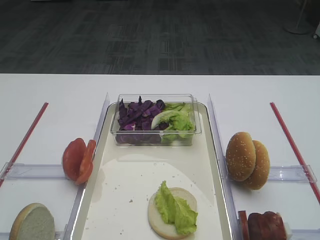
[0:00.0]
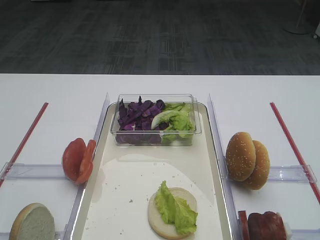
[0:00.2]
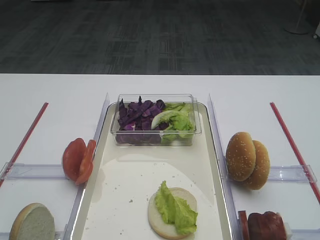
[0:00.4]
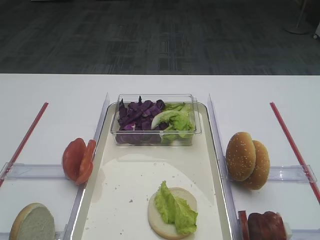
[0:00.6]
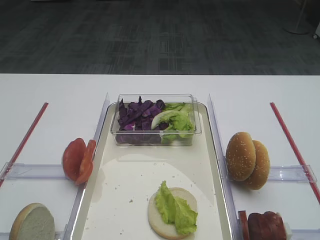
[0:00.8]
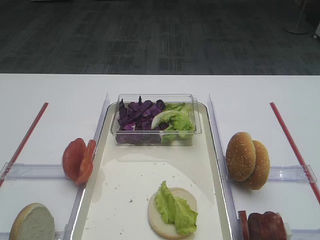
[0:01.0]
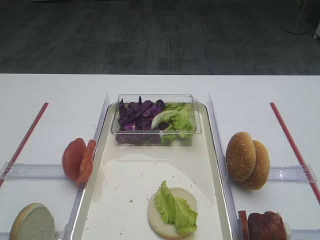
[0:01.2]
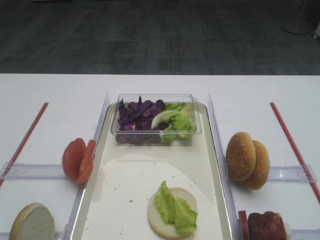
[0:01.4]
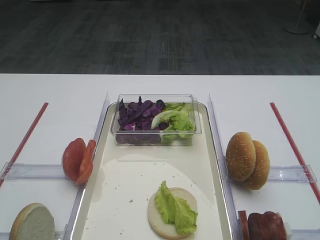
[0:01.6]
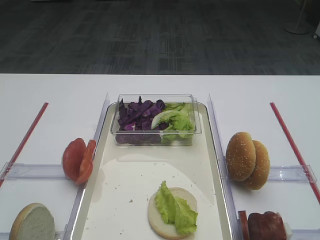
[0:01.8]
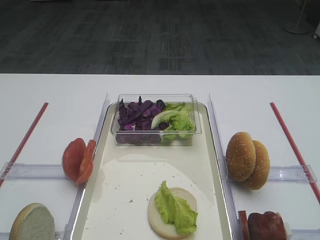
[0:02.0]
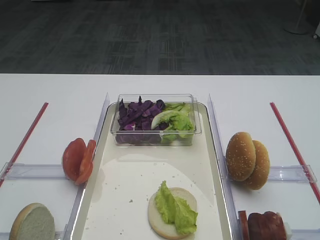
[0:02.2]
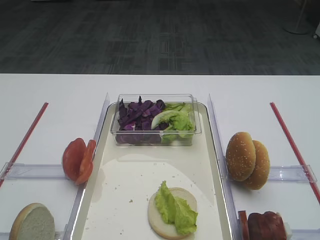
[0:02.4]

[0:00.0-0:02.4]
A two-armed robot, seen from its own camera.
0:00.0 to 0:02.4: Both grippers stay put.

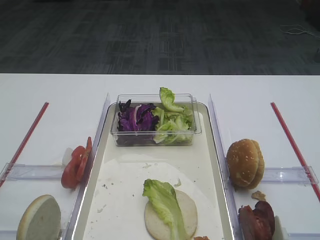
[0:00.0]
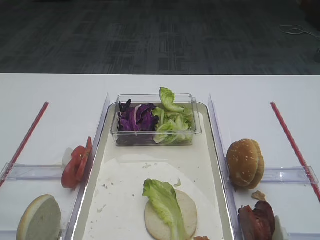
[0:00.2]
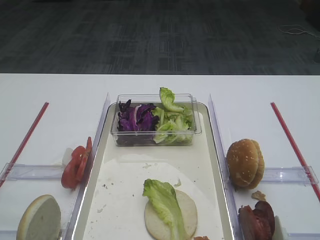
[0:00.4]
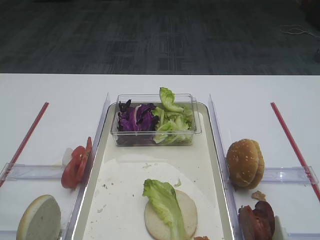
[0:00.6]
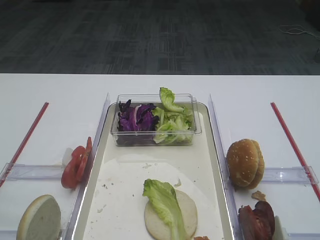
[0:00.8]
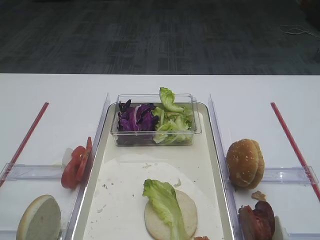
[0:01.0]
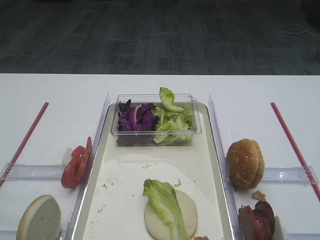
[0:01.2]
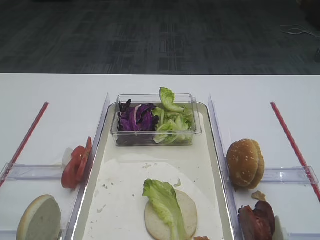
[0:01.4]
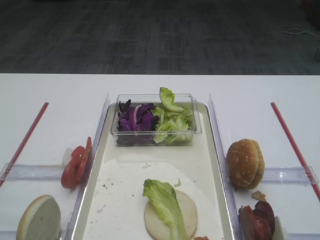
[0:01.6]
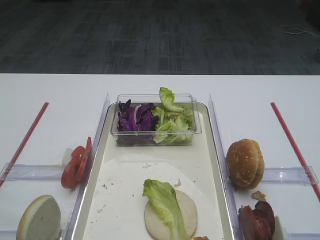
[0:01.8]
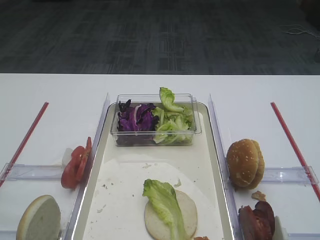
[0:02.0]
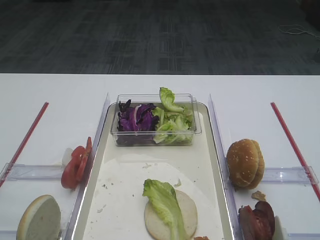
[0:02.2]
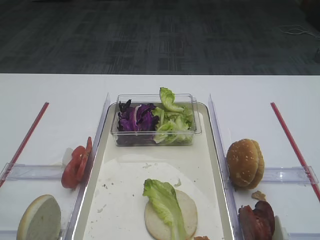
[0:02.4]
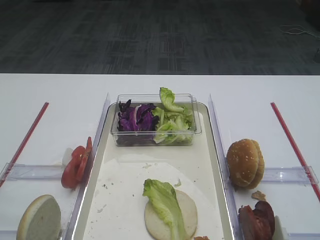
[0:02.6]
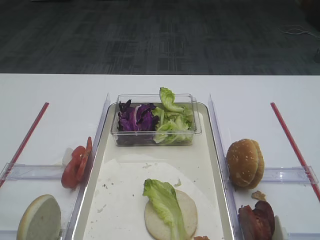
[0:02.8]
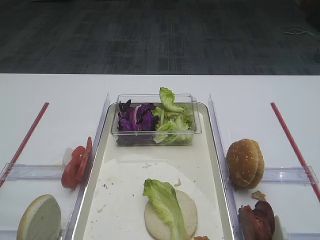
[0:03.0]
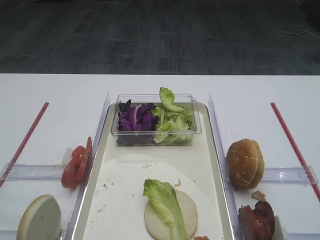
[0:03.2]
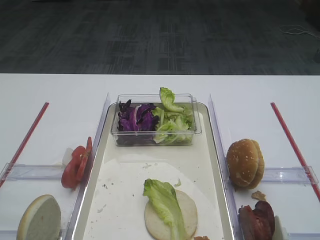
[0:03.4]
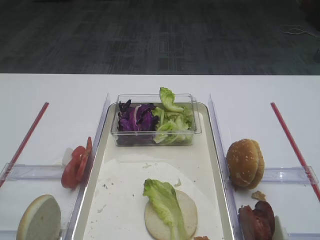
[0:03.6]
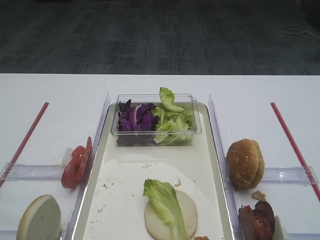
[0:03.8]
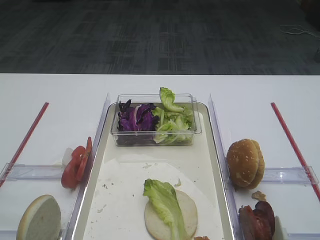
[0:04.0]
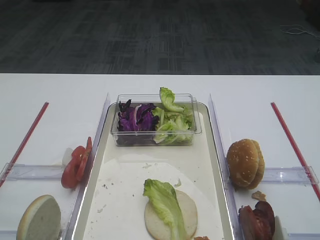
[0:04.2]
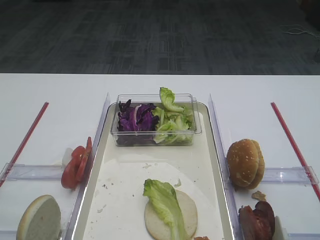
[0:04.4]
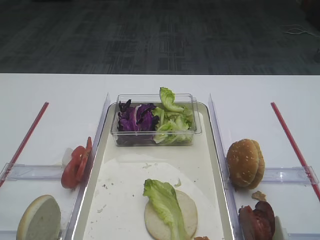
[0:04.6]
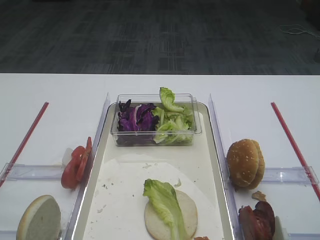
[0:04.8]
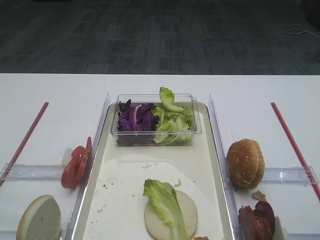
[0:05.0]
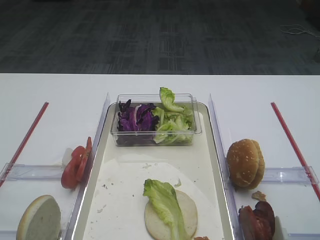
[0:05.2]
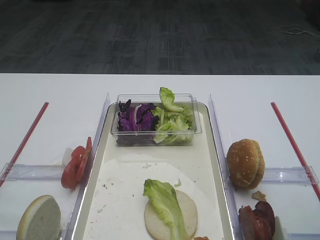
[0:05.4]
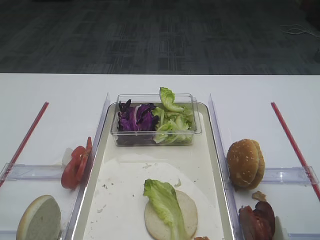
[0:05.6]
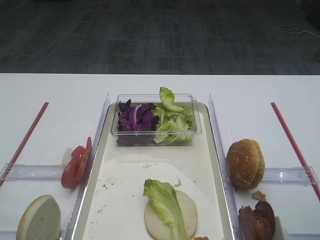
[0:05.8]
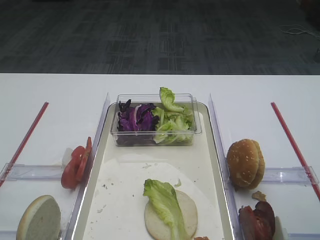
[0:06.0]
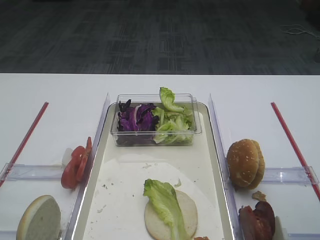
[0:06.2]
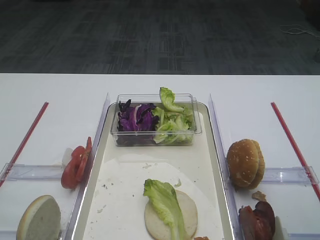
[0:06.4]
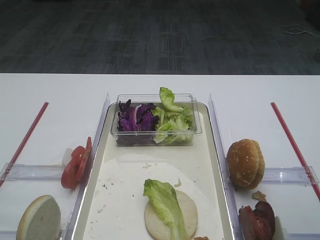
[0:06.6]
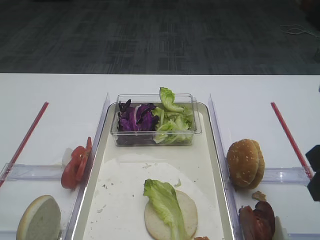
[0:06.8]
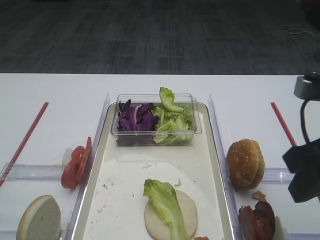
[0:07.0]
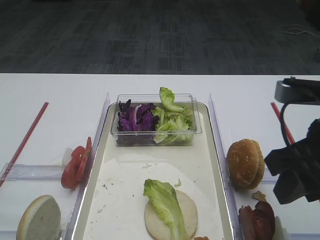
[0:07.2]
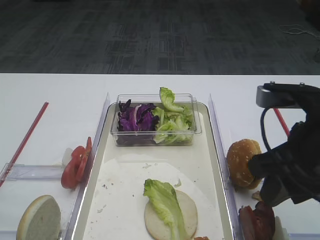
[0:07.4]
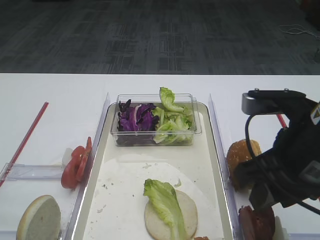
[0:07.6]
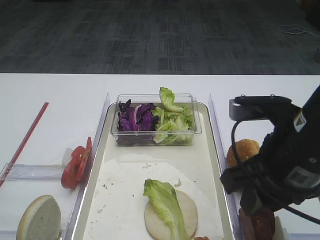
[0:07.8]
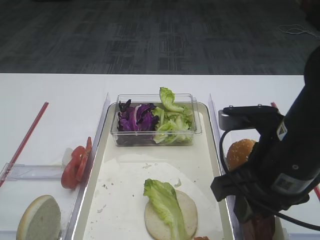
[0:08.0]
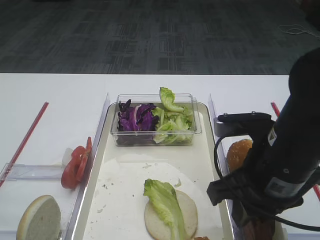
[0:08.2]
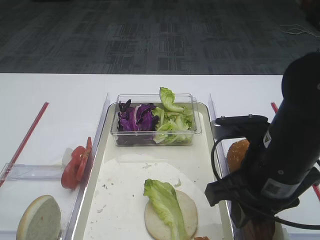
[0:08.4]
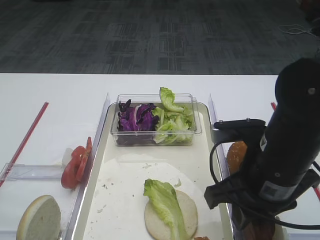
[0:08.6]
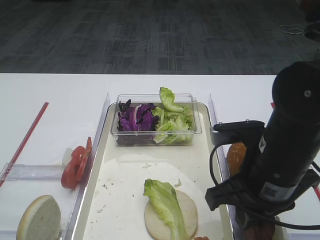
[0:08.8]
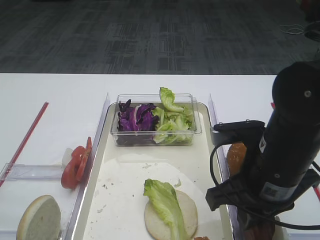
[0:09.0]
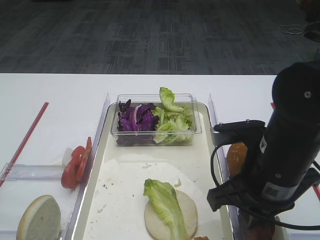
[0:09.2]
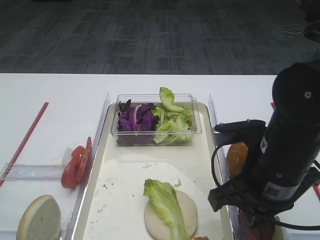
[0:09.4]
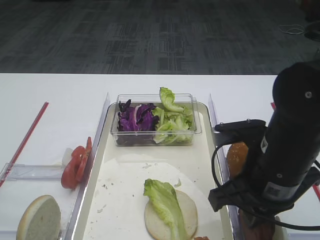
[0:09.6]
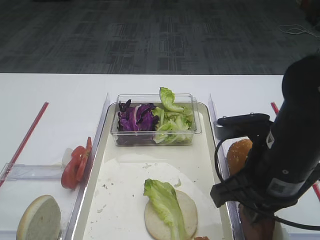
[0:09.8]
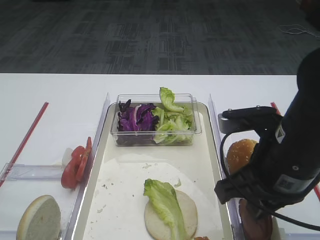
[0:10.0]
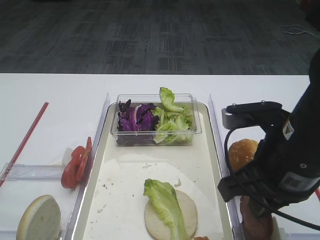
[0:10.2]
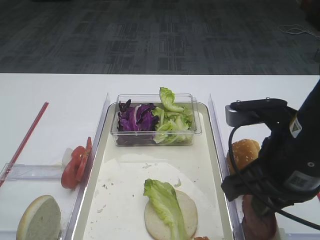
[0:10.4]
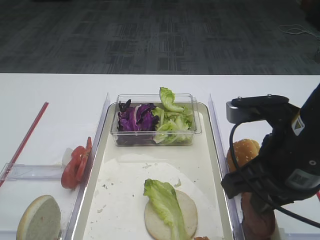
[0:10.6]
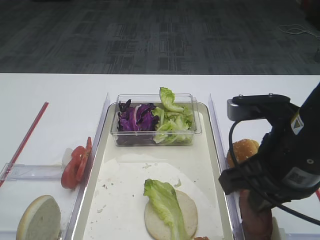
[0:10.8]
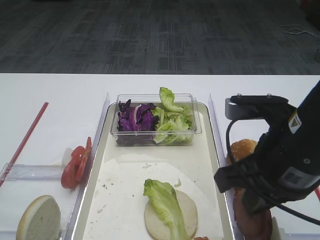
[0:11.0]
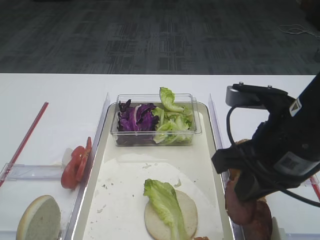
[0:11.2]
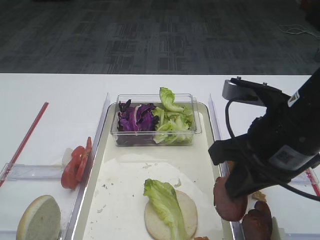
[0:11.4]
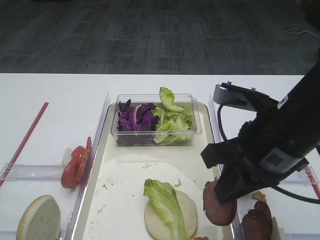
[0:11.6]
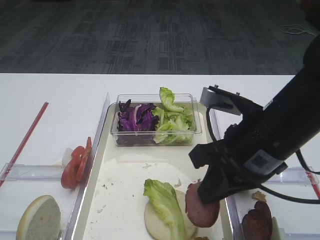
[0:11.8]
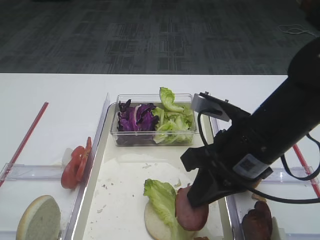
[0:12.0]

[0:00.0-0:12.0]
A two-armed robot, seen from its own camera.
Step, 0:00.0 to 0:10.4: Pick up the cutlet with the right gripper.
0:06.0 to 0:07.6: The right gripper travels to the left by roughly 10 cm.
0:07.6 to 0:09.0: The right gripper moves downward, some 5 cm, and closes its fingers.
0:09.0 to 0:10.4: The grippers stay close to where they were, moving slightly.
0:10.4 to 0:12.0: The right gripper moves roughly 5 cm.

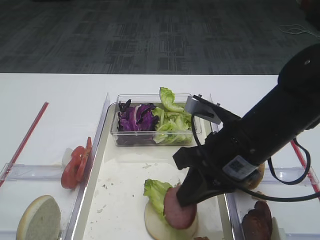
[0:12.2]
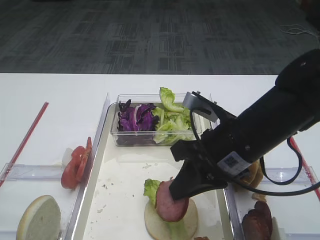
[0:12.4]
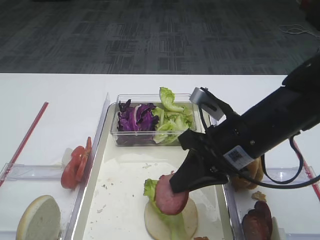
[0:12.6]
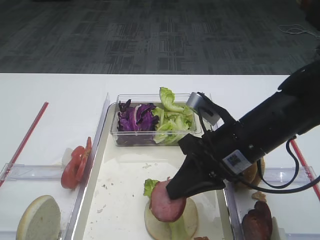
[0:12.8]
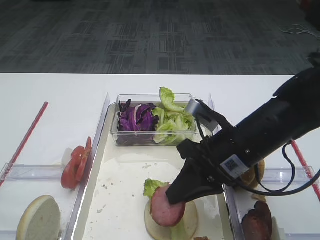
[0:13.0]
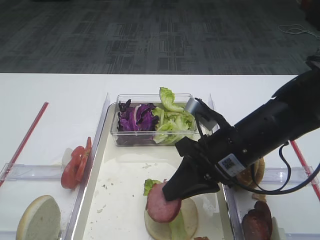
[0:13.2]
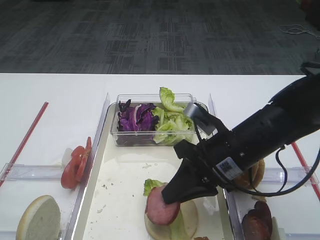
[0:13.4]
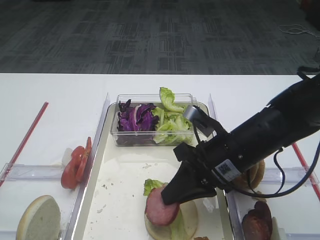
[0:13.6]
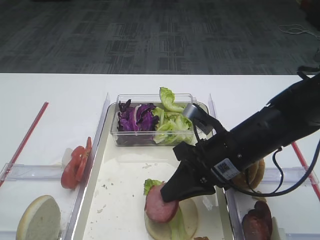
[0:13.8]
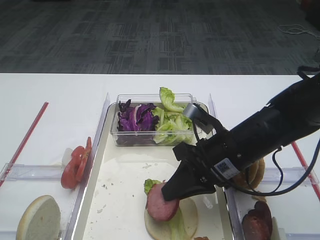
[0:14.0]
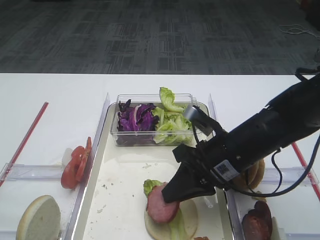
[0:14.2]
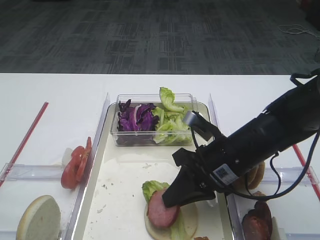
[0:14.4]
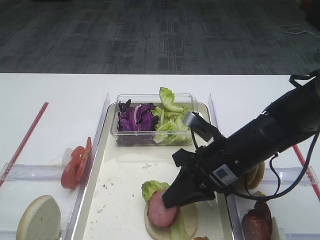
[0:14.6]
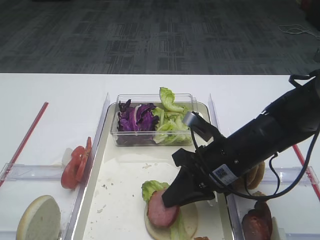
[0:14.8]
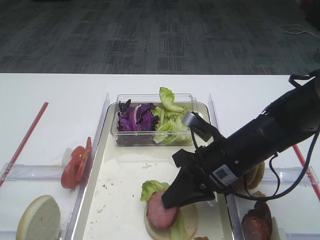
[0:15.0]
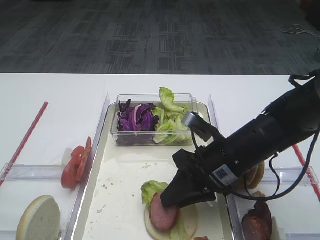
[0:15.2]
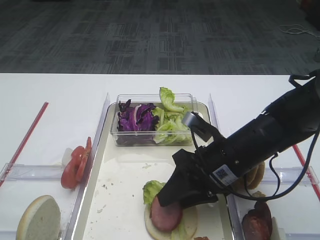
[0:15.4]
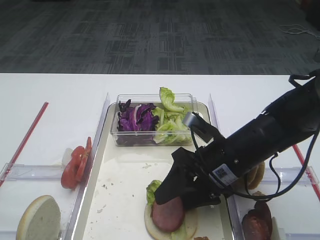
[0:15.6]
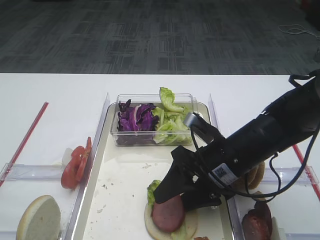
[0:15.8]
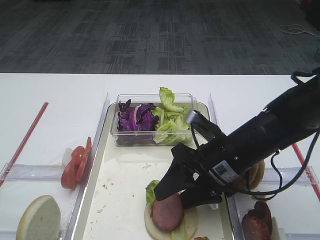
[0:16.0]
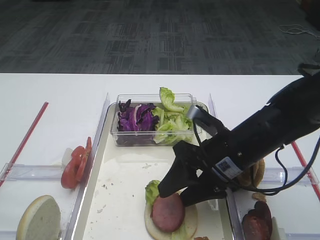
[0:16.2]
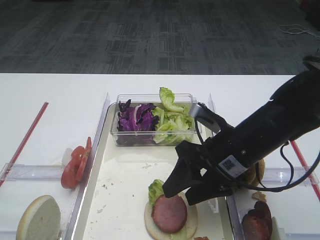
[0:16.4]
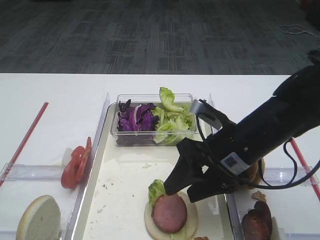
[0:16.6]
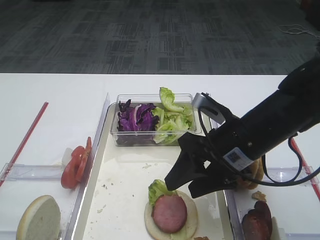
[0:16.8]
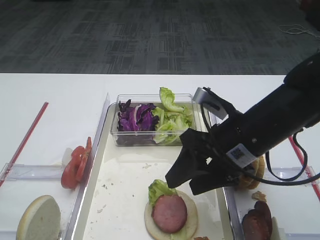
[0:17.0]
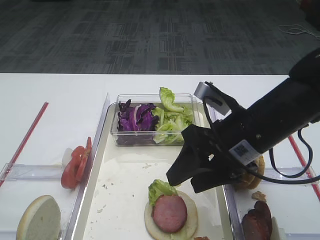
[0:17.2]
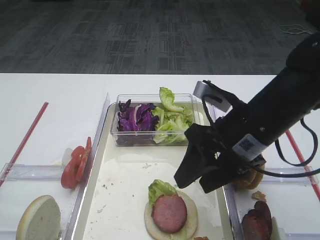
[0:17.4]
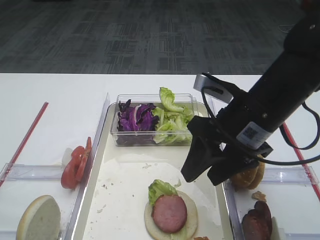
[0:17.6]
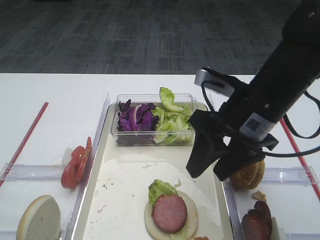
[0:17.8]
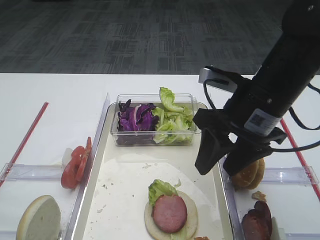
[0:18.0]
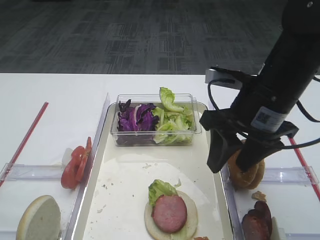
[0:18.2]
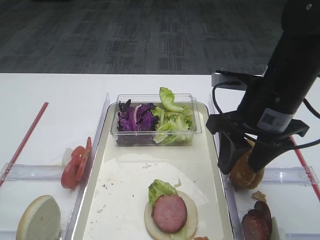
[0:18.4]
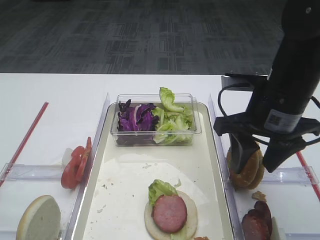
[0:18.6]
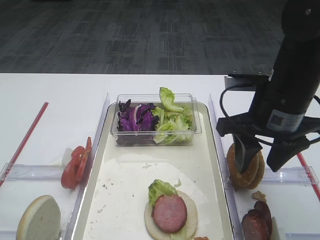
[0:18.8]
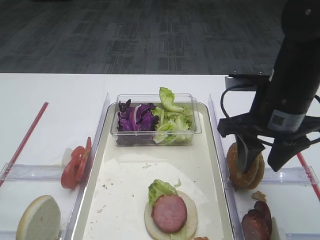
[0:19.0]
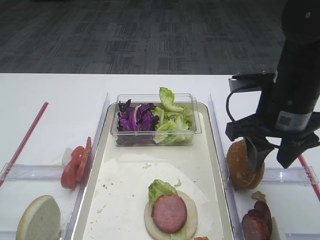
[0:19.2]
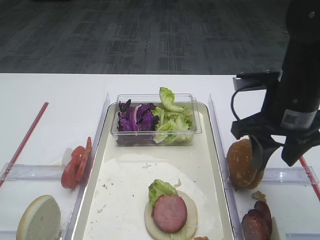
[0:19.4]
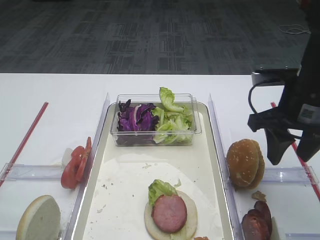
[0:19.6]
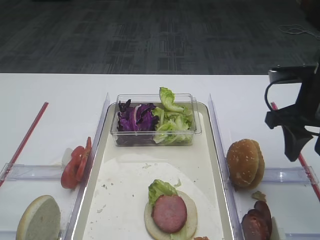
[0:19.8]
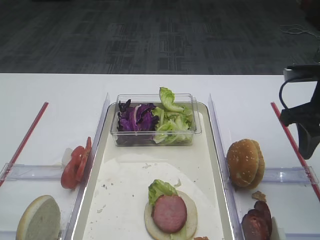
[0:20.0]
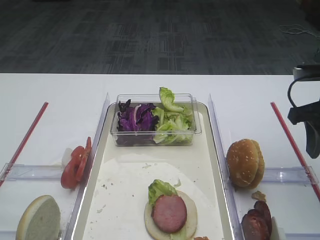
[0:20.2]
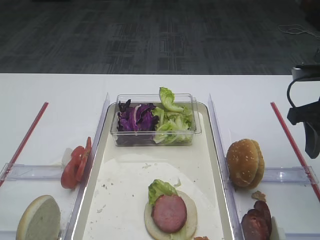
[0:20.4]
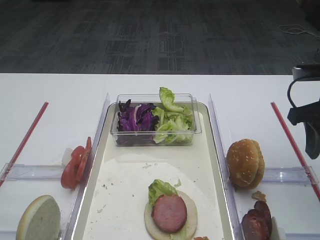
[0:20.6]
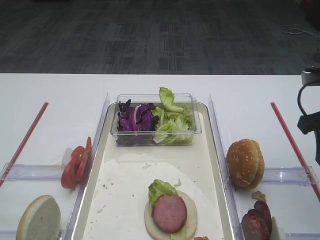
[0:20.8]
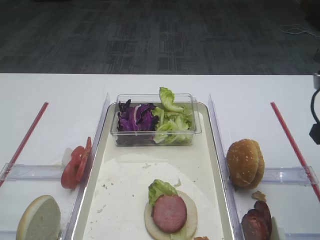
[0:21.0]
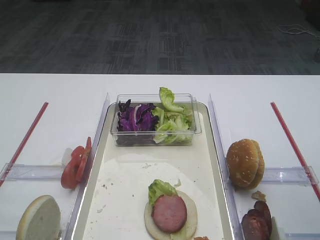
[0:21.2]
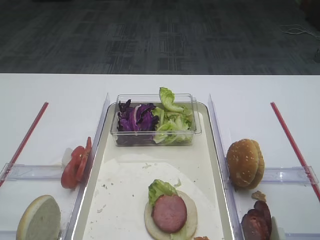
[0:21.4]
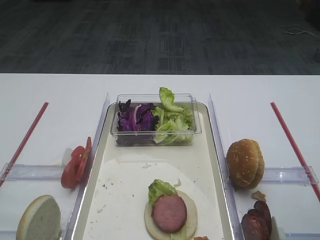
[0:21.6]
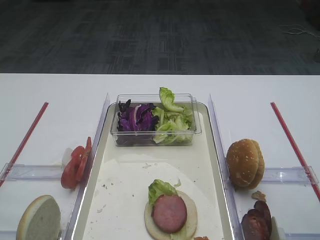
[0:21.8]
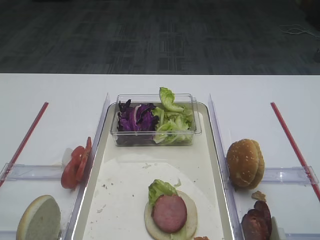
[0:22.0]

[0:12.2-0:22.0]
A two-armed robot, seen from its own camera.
Step, 0:12.2 to 0:16.8: Place the cutlet on the lettuce leaf with the right gripper.
0:12.2 to 0:13.6: The right gripper changes place by some 5 cm.
0:13.6 to 0:15.0: The grippers stay close to where they were, moving slightly.
0:15.0 to 0:16.4: The right gripper opens.
0:16.4 to 0:17.8: The right gripper travels upward by some 10 cm.
0:19.2 to 0:20.6: The right gripper heads to the right, covering roughly 10 cm.
0:20.6 to 0:22.0: The right gripper moves backward, approximately 15 cm.
